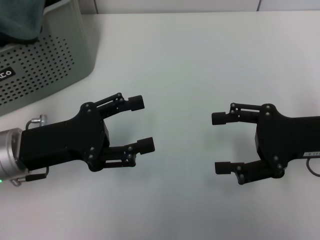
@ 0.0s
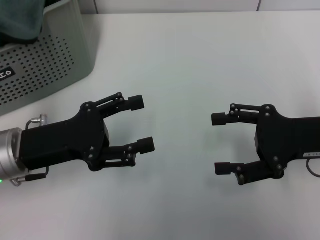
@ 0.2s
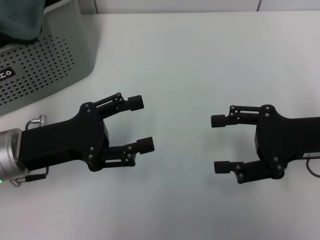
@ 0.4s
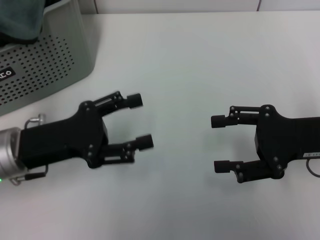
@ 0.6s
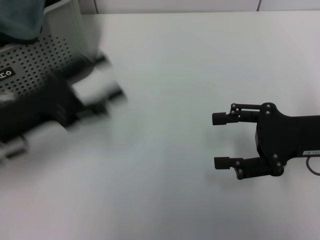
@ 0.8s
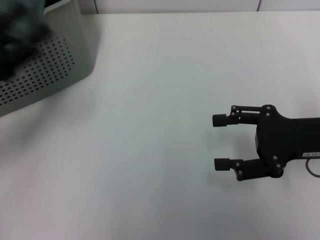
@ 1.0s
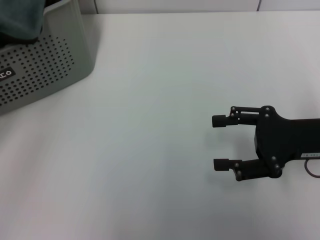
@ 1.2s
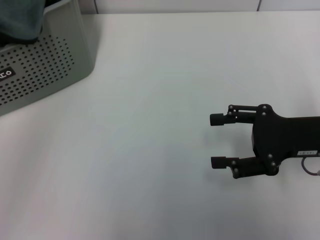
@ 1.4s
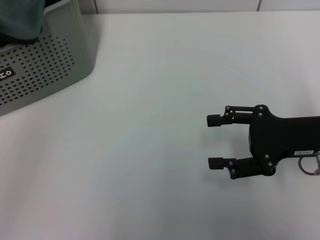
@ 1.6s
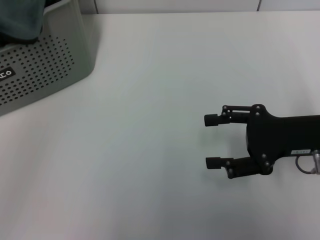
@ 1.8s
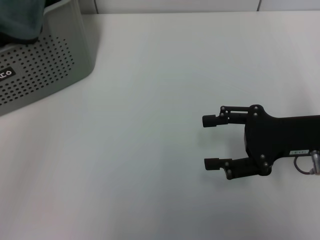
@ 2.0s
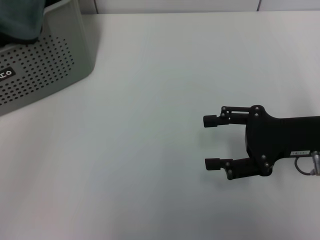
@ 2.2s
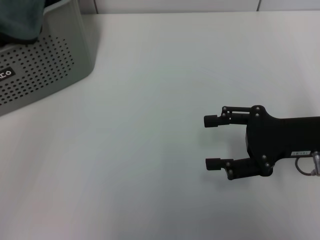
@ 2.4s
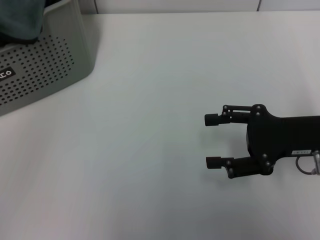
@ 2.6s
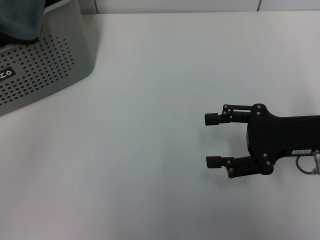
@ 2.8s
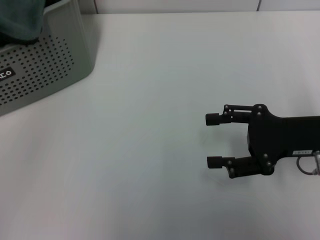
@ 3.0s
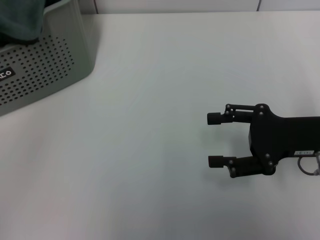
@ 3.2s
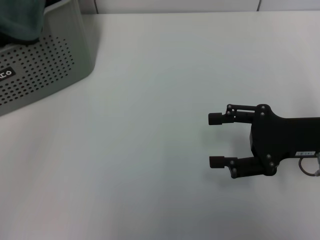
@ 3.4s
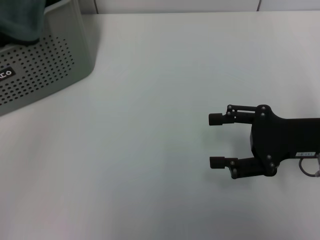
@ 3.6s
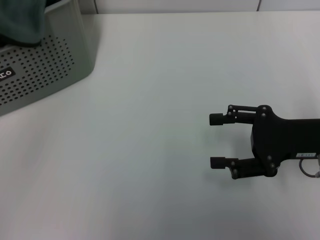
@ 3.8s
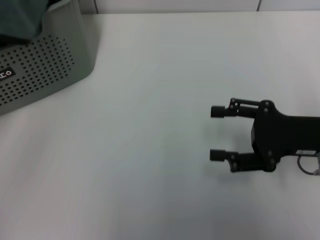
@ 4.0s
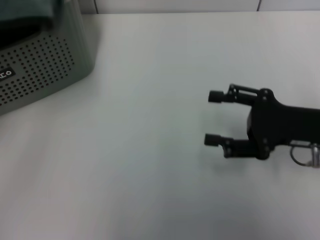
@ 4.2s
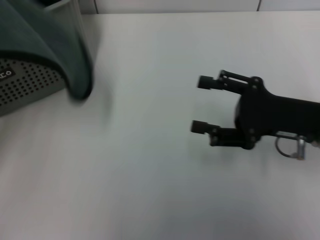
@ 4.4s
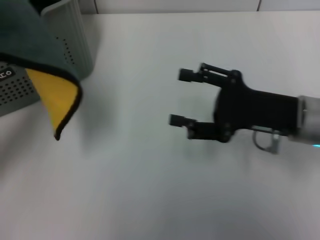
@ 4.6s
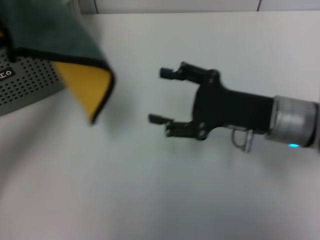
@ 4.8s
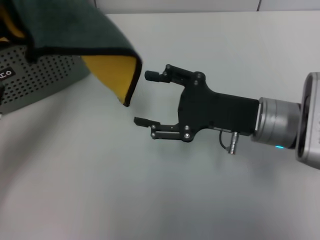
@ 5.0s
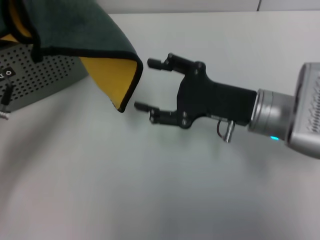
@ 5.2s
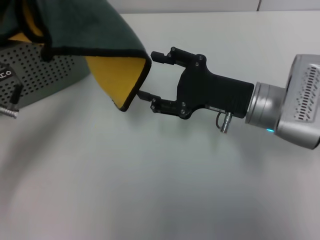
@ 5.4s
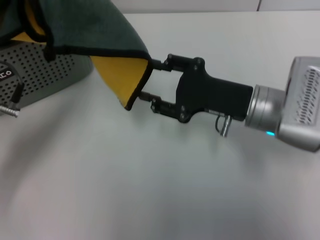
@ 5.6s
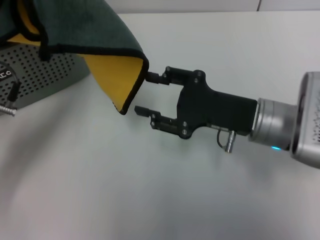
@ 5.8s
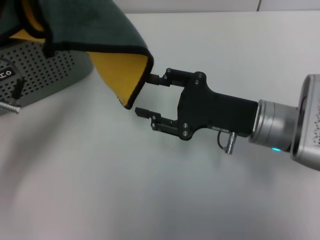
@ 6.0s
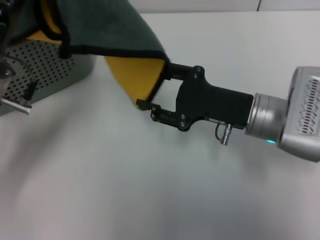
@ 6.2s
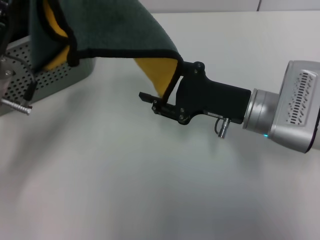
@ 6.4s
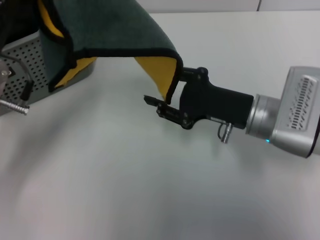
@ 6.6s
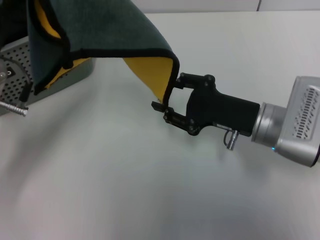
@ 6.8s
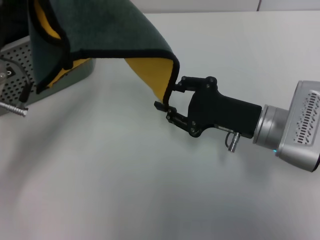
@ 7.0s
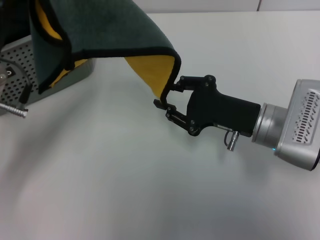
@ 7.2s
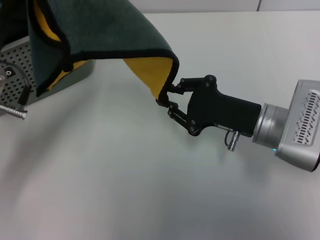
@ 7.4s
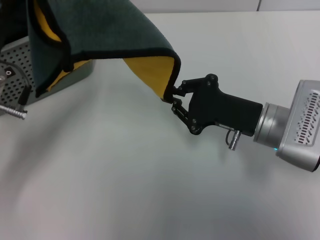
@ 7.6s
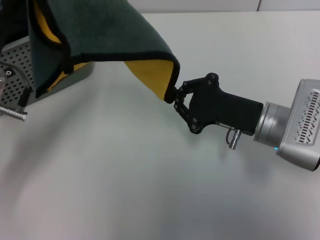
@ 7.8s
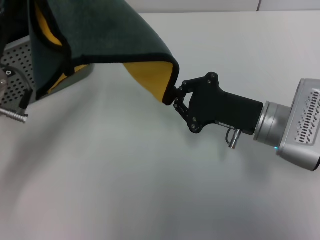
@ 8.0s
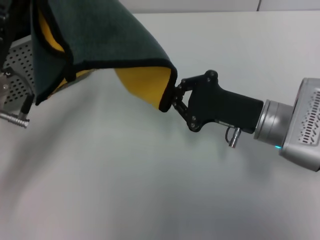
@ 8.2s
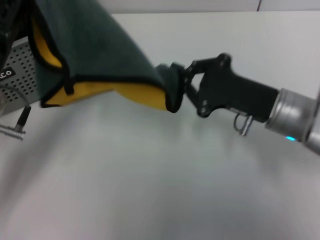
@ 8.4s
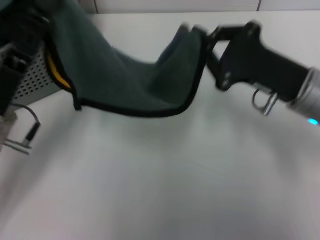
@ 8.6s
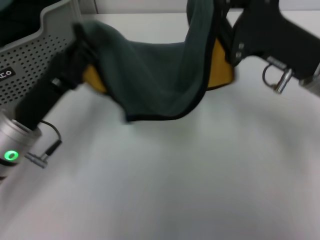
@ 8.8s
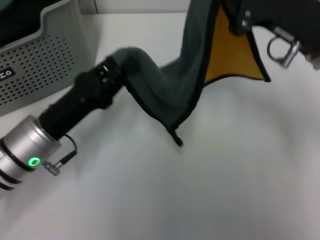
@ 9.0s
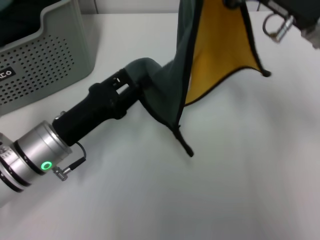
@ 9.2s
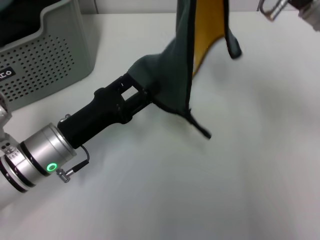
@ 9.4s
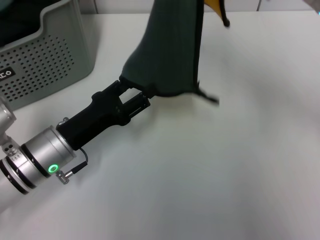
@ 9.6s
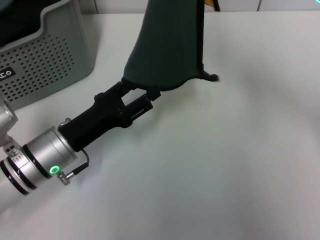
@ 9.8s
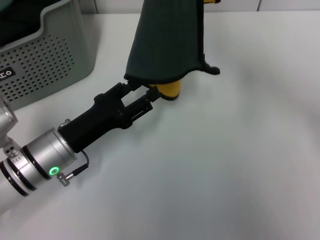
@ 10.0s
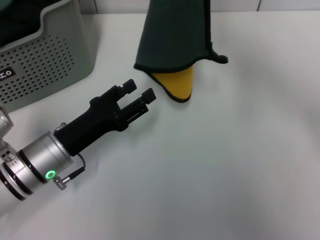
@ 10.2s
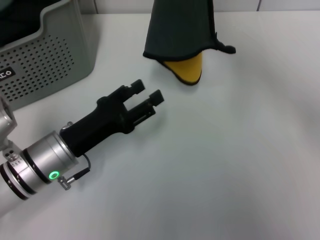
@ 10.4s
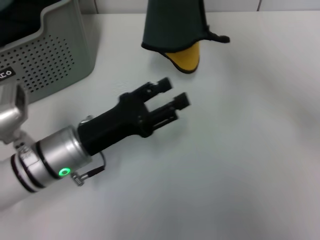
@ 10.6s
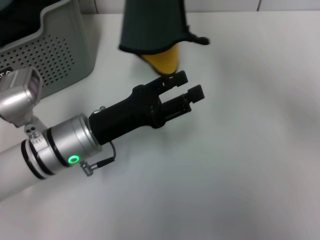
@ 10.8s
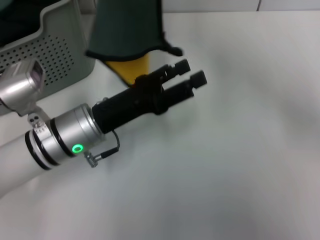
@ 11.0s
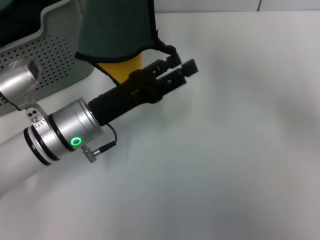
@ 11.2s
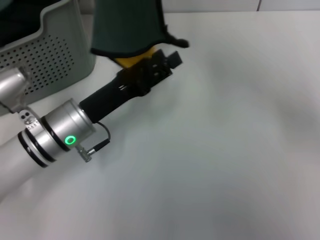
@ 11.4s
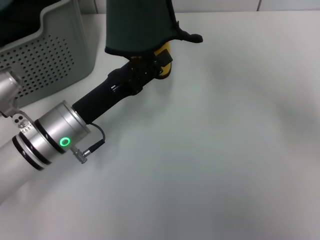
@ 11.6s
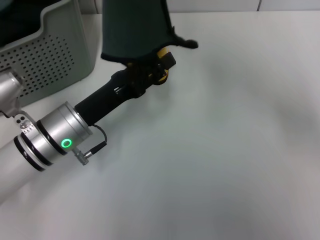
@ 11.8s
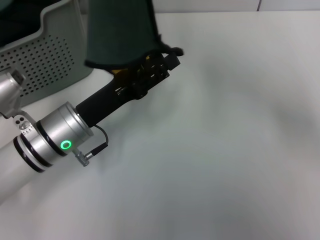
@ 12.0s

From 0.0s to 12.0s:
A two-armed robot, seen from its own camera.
Task of the whole recording: pick up the towel from the storage box and lay it flat on the table.
Step, from 0.0s to 3.4s: Pick up a towel with the left gripper.
Step, from 3.6s to 7.8s: Spread the towel flat with the left gripper.
From 0.0s to 1.6s: The left gripper heads to the left, covering roughly 15 cm.
From 3.0s to 4.4s: The left gripper shifts about 5 cm to the right, and closes its fingers.
From 4.4s to 6.0s: The right gripper travels to the left by approximately 5 cm; the left gripper shifts some 10 cm to the right.
From 6.0s to 7.6s: The right gripper closes up.
From 7.6s to 9.0s: The right gripper goes approximately 10 cm upward, while the left gripper is displaced downward by approximately 10 cm.
From 9.0s to 10.4s: The right gripper is displaced upward by about 10 cm. The left gripper opens.
From 10.4s to 12.0s: The right gripper shifts some 5 cm to the left.

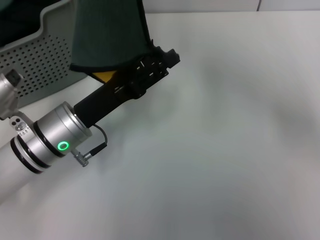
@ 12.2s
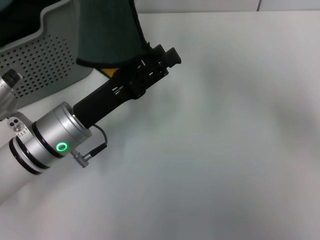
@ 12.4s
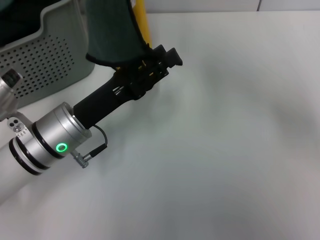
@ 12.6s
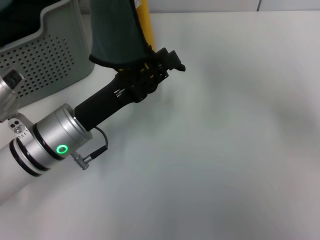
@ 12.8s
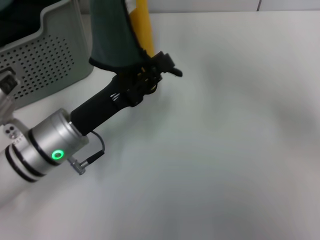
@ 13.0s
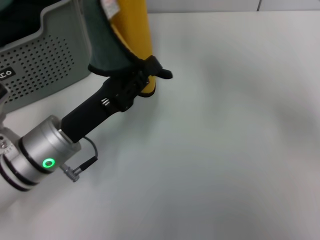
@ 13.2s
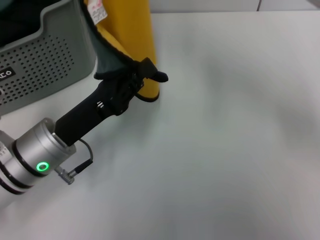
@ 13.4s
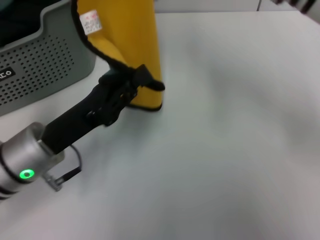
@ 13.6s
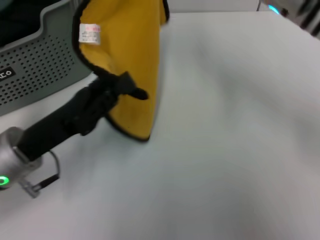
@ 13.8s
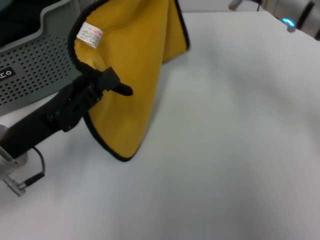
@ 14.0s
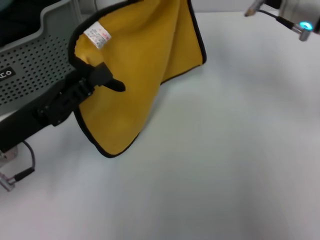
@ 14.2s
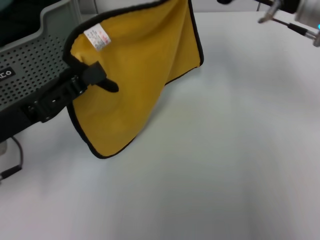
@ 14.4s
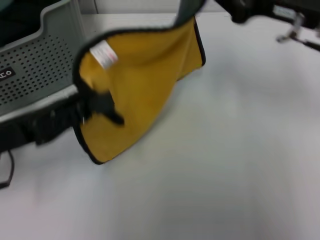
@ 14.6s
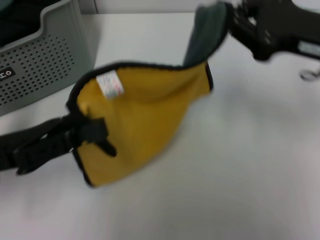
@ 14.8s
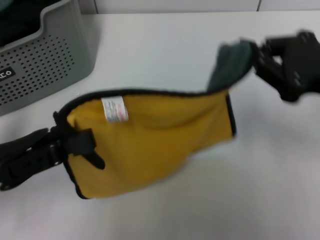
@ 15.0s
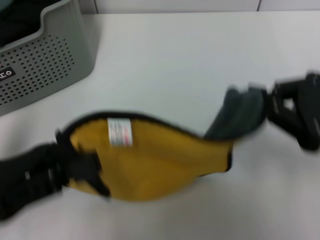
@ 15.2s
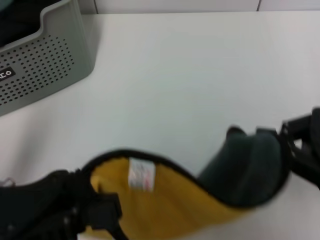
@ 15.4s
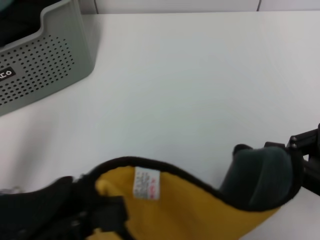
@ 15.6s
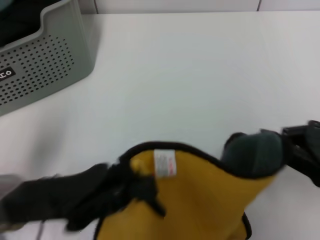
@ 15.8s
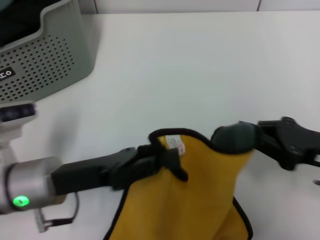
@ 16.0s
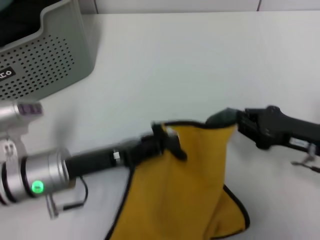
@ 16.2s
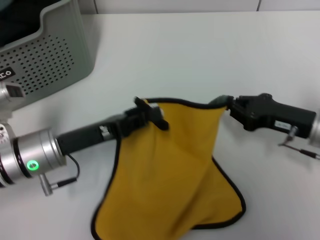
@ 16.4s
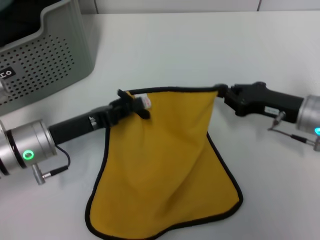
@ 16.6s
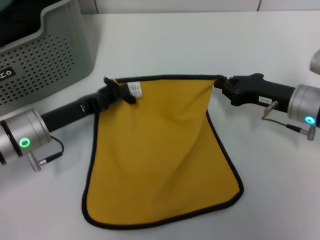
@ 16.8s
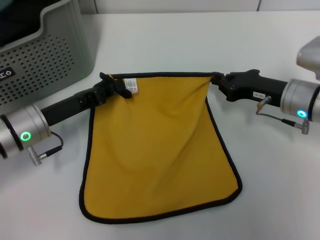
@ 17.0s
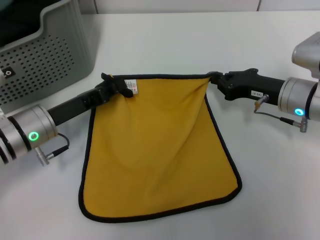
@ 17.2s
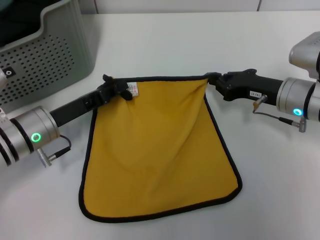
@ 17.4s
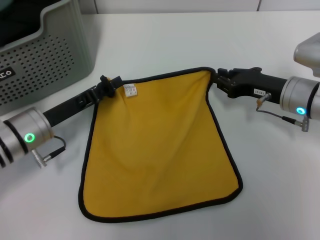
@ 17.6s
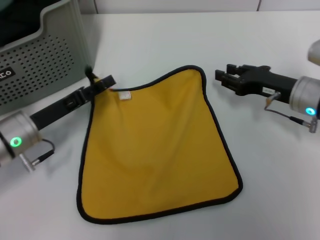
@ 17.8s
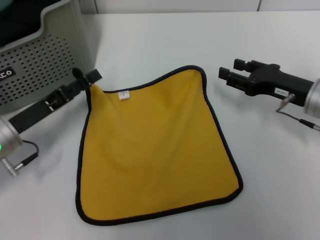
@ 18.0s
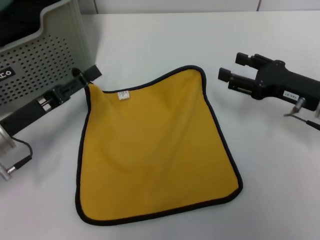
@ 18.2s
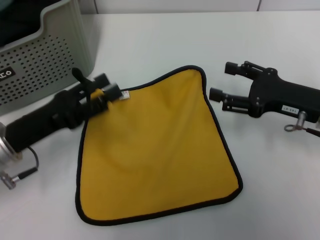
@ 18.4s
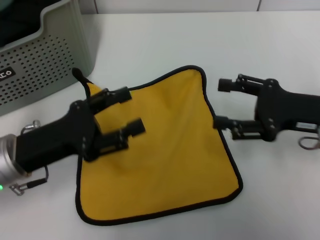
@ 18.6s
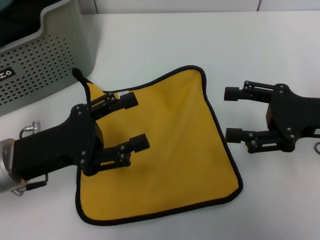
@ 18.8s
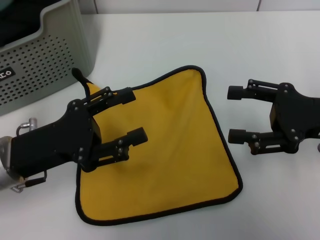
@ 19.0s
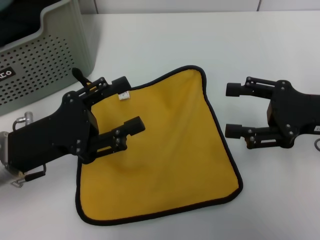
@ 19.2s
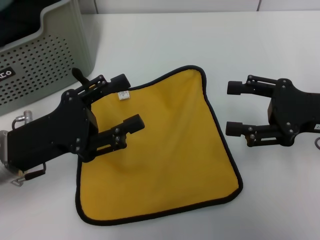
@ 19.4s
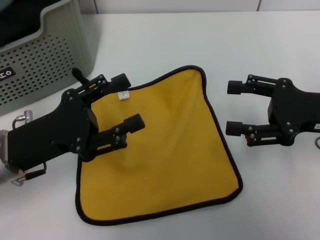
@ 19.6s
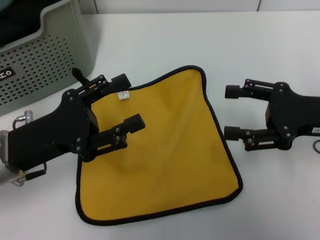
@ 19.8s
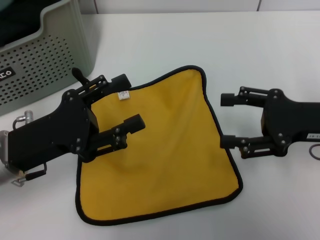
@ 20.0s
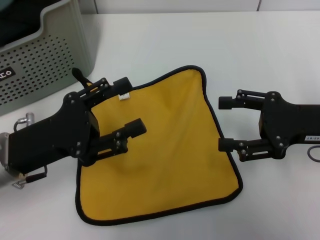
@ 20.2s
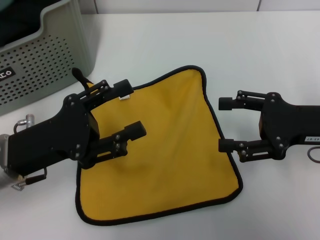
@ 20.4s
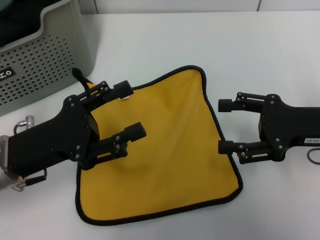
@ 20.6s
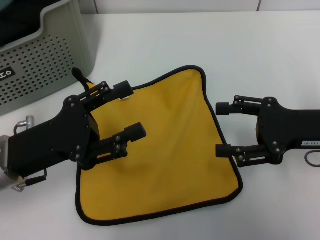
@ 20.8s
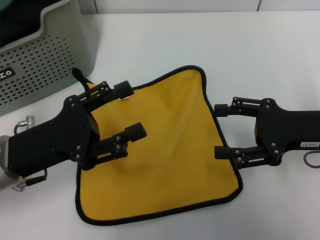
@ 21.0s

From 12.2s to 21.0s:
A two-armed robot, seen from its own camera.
Task of the whole recording: pick up the towel from the storage box and lay it flat on the table.
Step, from 12.2s to 18.0s: Spread the towel flat with the right gripper.
From 12.2s to 13.6s: The left gripper closes.
From 13.6s to 15.2s: The left gripper shifts roughly 10 cm to the left, upward and backward, while the right gripper travels to the right, backward and downward by roughly 20 cm.
From 15.2s to 16.6s: Both grippers travel together downward and forward, approximately 15 cm.
From 16.6s to 18.0s: The left gripper opens up.
From 18.0s to 19.6s: The right gripper is displaced upward and backward by roughly 10 cm, and opens its fingers, while the left gripper changes place by some 5 cm.
From 19.6s to 21.0s: The grippers stay close to where they were, moving slightly.

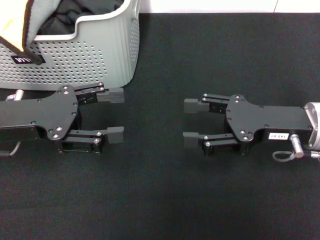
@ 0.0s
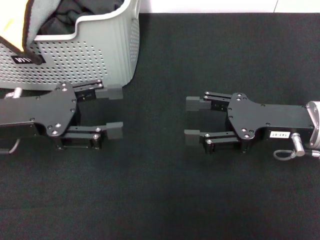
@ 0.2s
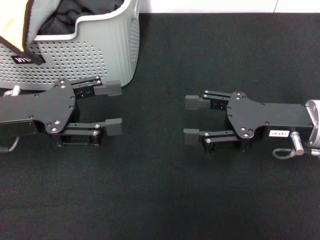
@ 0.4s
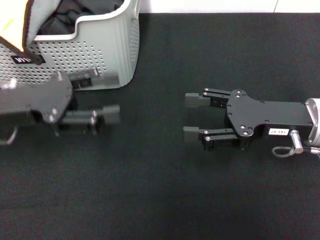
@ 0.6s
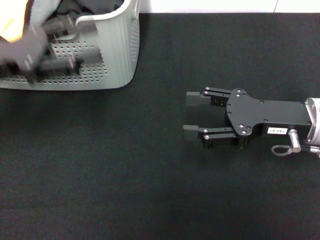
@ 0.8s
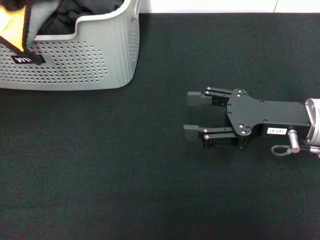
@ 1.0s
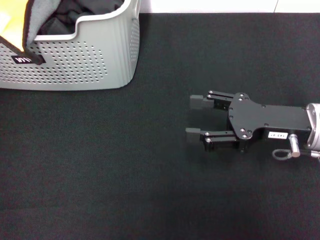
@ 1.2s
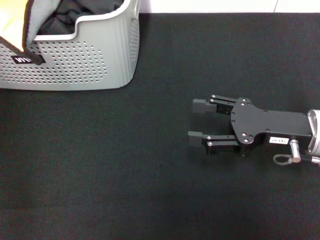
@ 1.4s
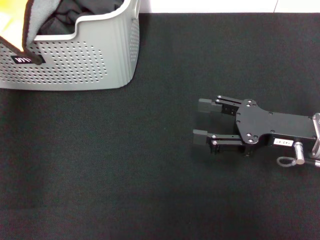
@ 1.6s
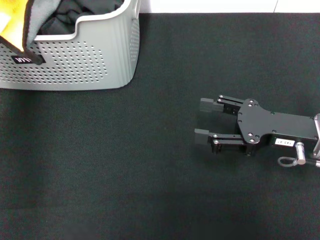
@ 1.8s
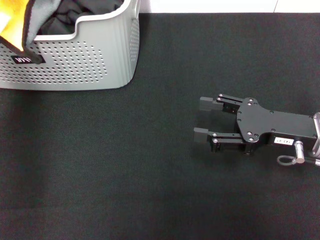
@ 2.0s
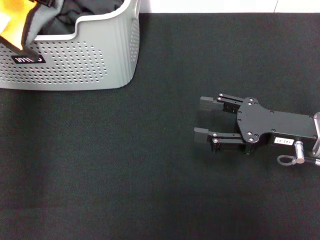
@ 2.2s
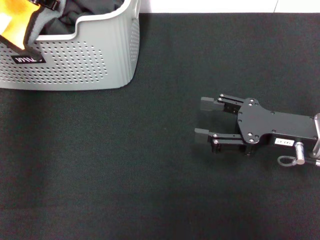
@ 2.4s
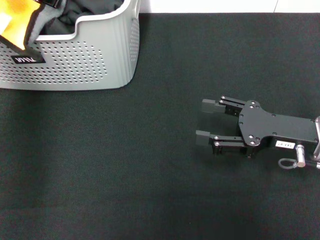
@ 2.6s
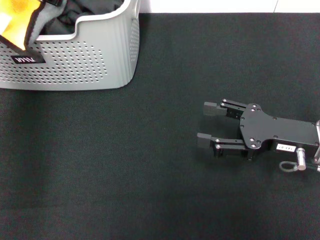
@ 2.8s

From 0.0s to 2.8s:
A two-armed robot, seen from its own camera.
Task of the whole recording: pick up the towel from the storage box and lay it flat on the black tablecloth.
From 0.0s to 1.4s: The left gripper goes about 20 cm upward and forward.
From 1.4s to 2.8s: The left gripper changes place by approximately 5 cm.
